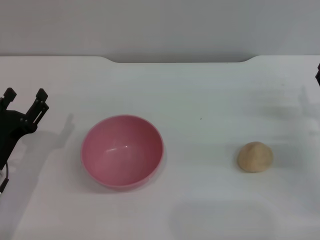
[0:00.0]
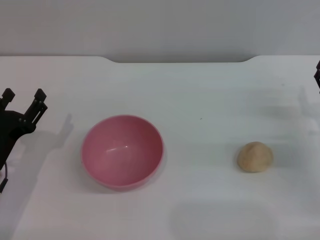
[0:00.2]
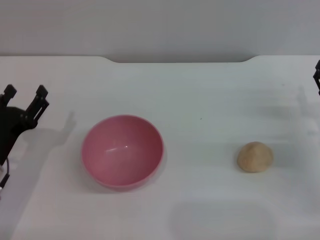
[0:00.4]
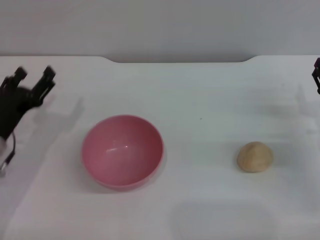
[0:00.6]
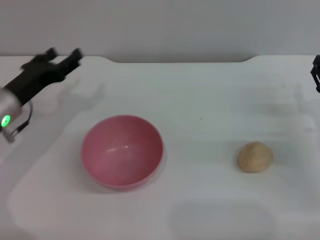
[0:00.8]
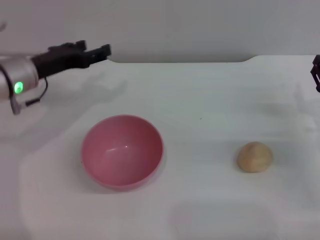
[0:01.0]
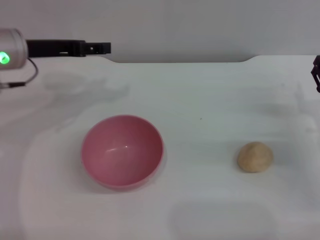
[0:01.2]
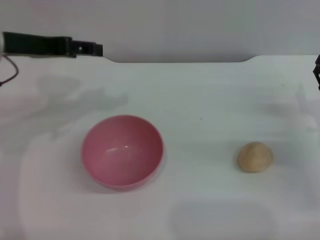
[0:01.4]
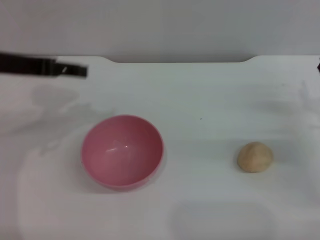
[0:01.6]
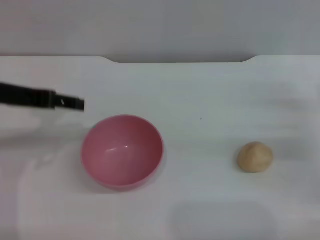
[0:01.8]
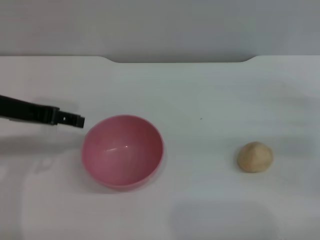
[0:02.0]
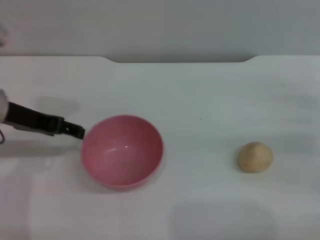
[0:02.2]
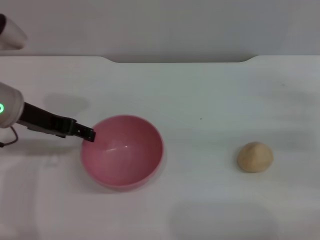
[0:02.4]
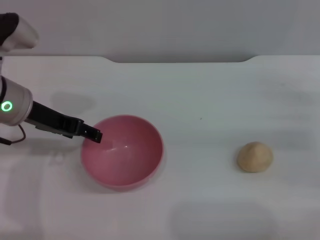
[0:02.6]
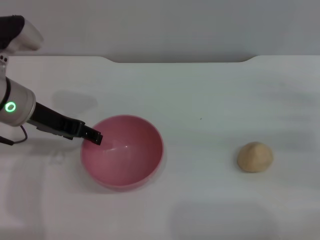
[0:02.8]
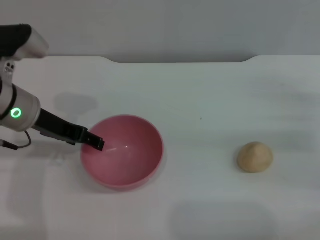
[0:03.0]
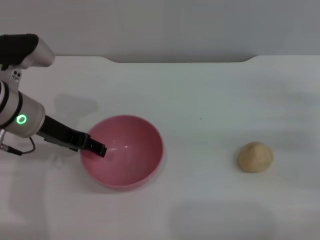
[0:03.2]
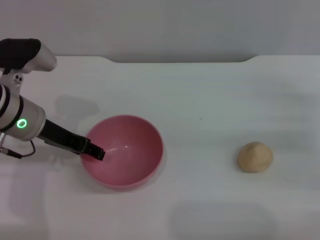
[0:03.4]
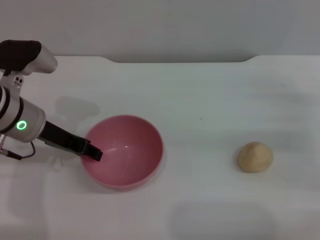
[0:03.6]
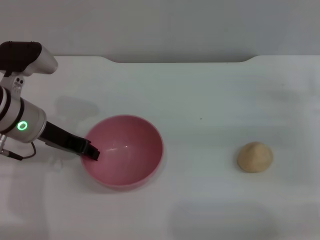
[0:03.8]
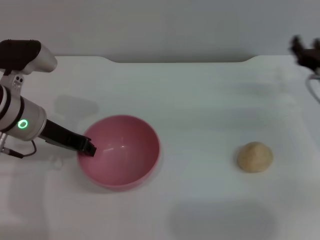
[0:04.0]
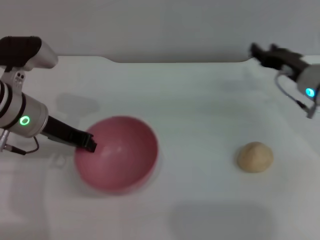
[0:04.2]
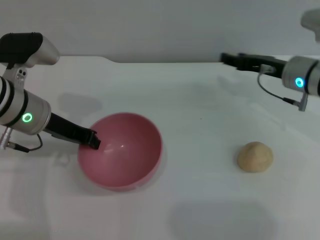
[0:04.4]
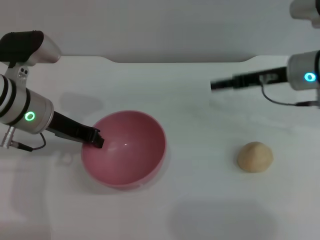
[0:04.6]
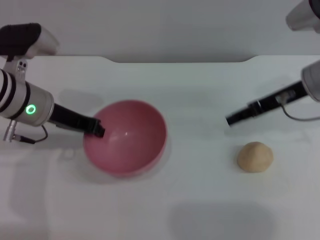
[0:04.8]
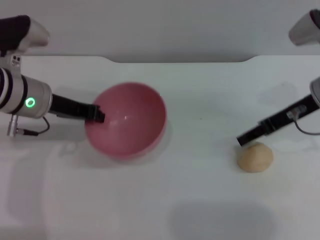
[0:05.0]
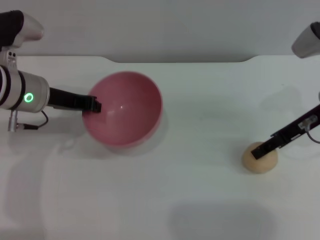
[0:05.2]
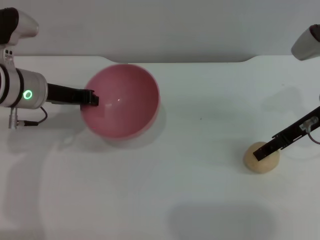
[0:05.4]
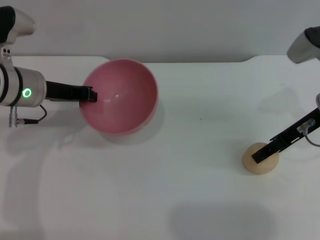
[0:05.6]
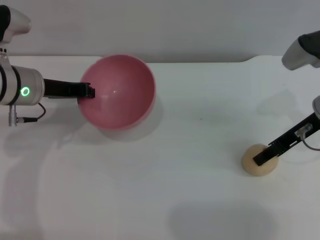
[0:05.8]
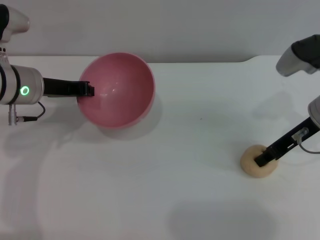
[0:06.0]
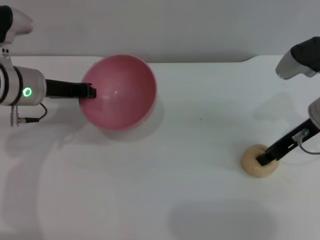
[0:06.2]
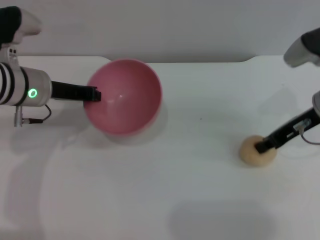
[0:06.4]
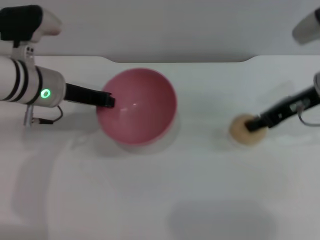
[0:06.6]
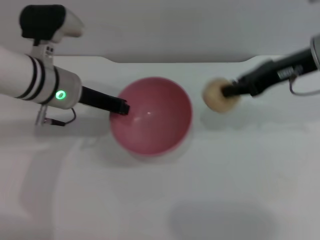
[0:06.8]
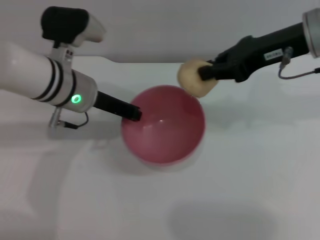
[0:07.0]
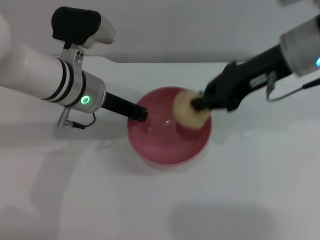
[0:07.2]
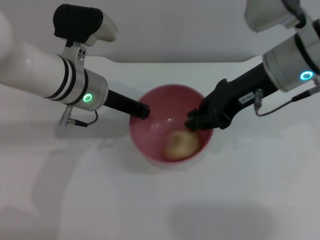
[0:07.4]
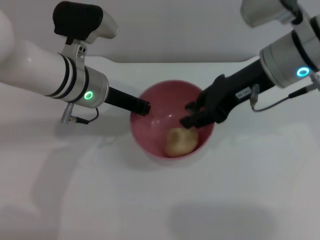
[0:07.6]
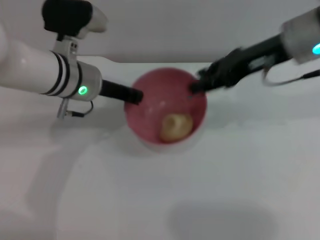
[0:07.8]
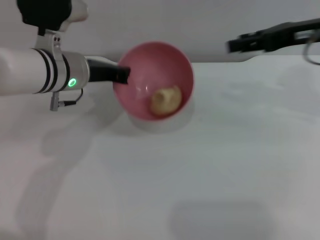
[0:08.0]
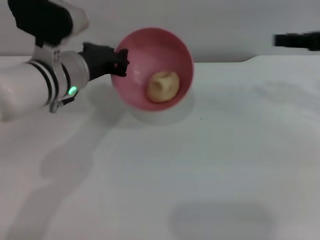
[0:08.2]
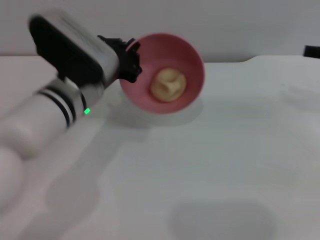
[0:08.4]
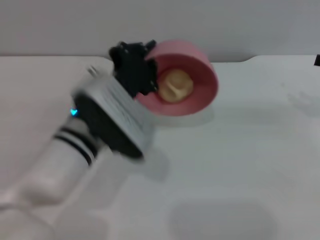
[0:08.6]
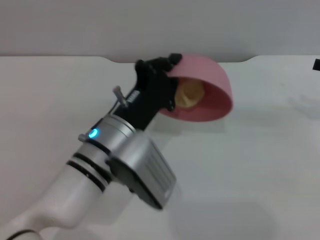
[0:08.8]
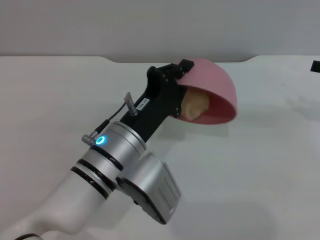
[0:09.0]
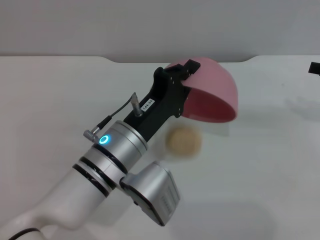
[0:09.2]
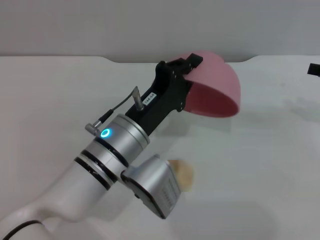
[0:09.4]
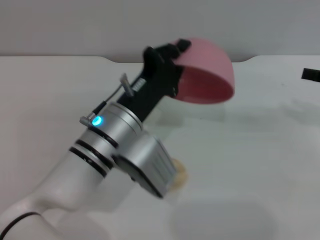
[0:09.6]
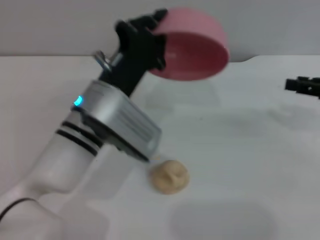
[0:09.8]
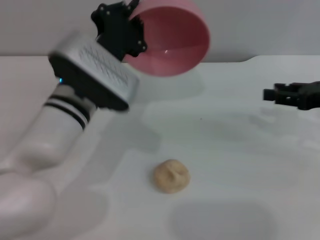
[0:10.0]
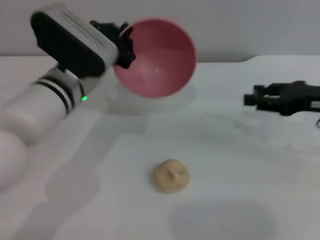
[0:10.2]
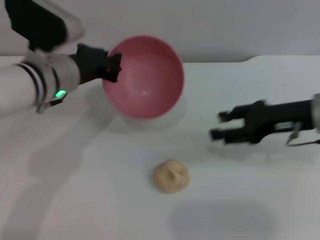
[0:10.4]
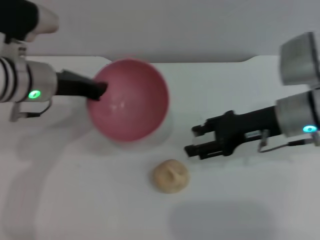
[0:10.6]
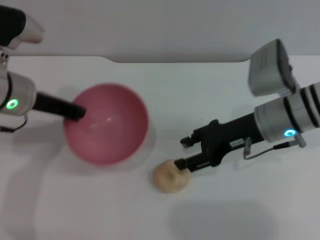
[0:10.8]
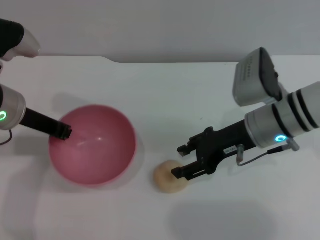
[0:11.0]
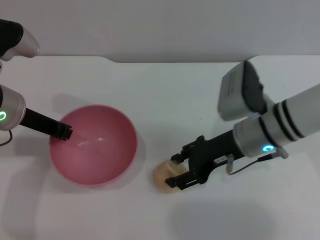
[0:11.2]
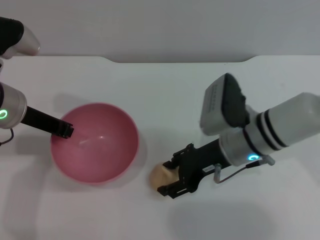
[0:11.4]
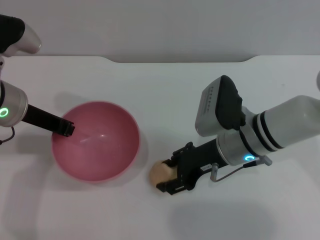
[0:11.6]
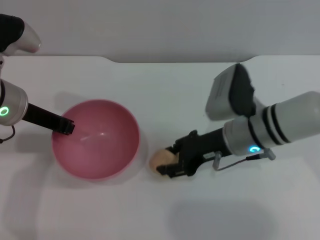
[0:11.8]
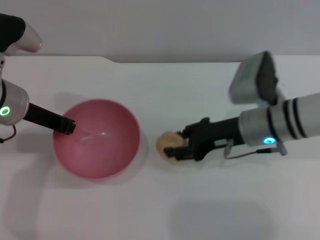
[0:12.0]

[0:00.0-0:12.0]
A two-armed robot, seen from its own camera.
Task of the whole recording: put the egg yolk pastry into the pink bowl and pour it out repeatedly.
Step, 0:00.0 to 0:04.6: Pick up the bowl with the left gripper.
Step, 0:04.8 to 0:06.6: Pick up the egg yolk pastry with the right gripper.
Step, 0:06.8 to 0:07.8: Place the egg yolk pastry into the bowl.
Step, 0:08.0 to 0:09.2: Pour the egg yolk pastry out of bowl.
0:00.0 to 0:01.6: The left gripper goes some 25 cm upward and forward.
0:01.6 to 0:03.0: The left gripper travels downward by some 10 cm.
0:03.0 to 0:04.4: The right gripper heads to the left and forward, covering some 15 cm; the left gripper closes up.
0:04.4 to 0:06.0: The right gripper ends up approximately 5 cm from where it was.
0:06.0 to 0:07.6: The right gripper travels to the left and upward by about 10 cm. The left gripper is displaced to the right by about 10 cm.
0:07.6 to 0:09.0: The right gripper shifts some 20 cm to the right, and opens, while the left gripper heads backward, downward and to the right, covering some 15 cm.
0:09.0 to 0:10.4: The left gripper moves forward, to the left and upward, about 15 cm; the right gripper heads to the left, covering roughly 10 cm.
0:10.4 to 0:12.0: The left gripper heads to the left, covering roughly 5 cm, while the right gripper heads to the left, covering some 10 cm.

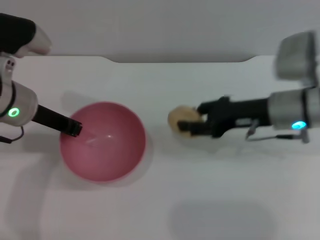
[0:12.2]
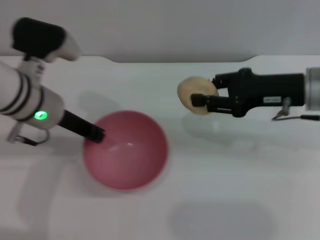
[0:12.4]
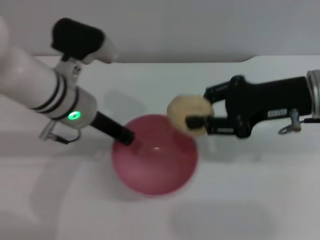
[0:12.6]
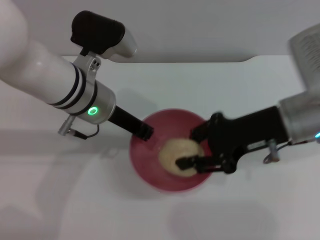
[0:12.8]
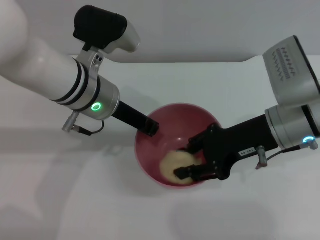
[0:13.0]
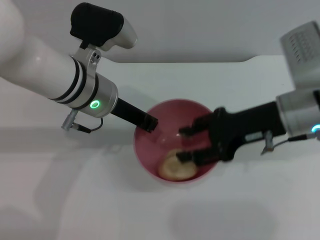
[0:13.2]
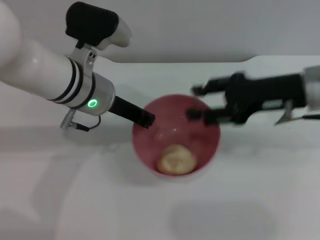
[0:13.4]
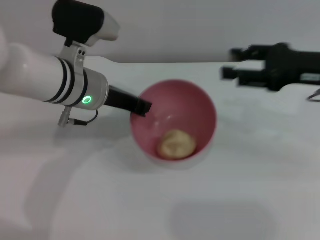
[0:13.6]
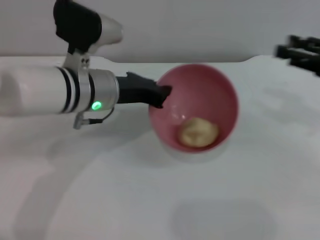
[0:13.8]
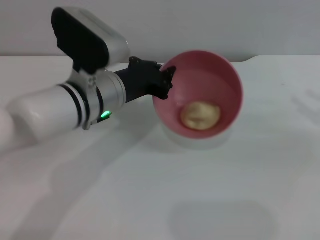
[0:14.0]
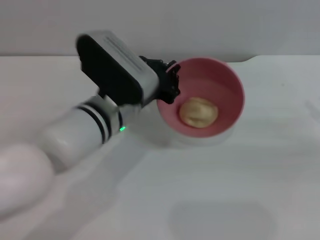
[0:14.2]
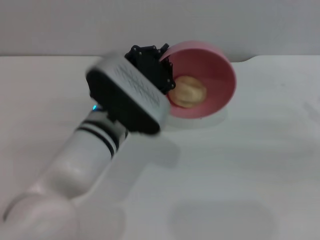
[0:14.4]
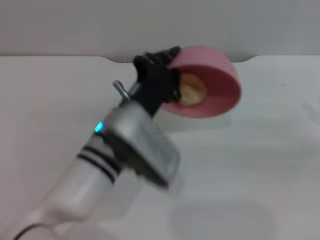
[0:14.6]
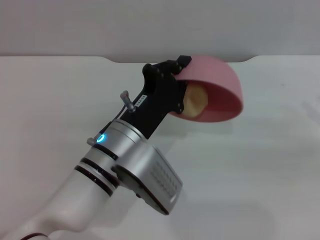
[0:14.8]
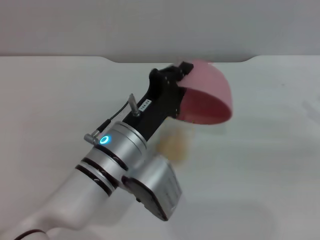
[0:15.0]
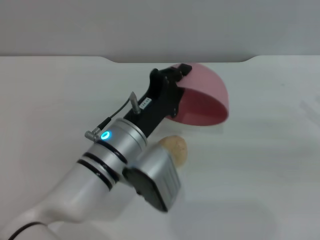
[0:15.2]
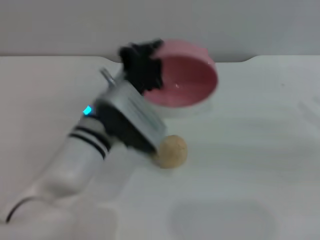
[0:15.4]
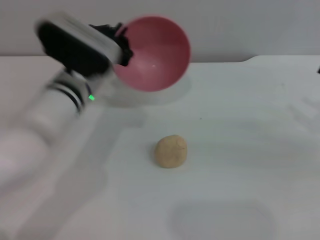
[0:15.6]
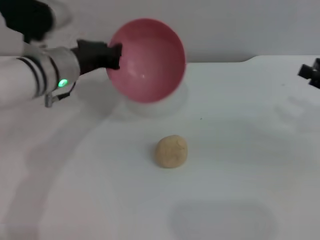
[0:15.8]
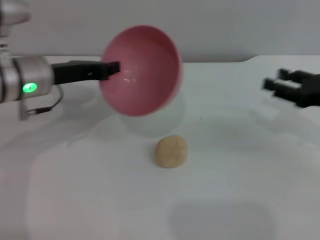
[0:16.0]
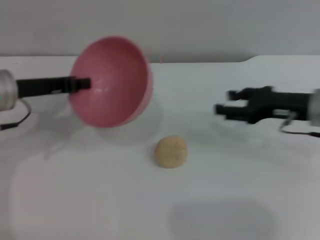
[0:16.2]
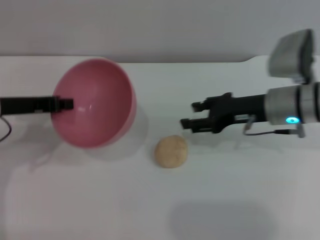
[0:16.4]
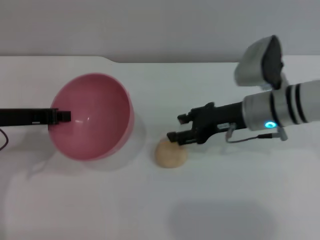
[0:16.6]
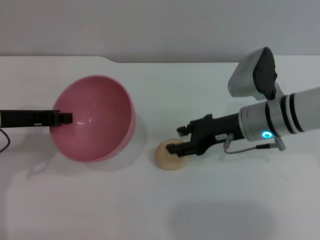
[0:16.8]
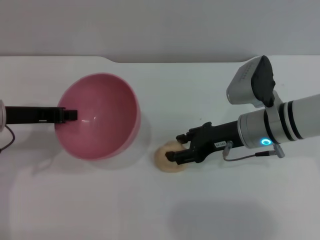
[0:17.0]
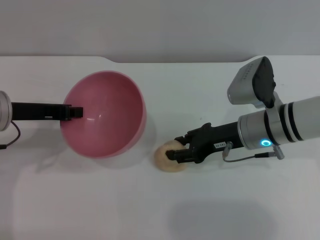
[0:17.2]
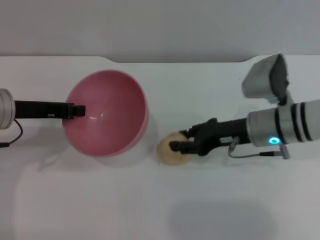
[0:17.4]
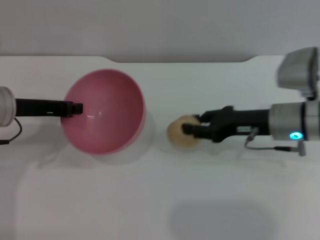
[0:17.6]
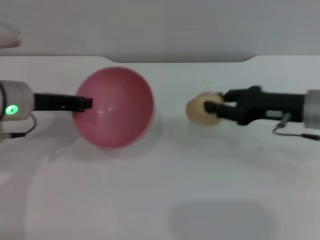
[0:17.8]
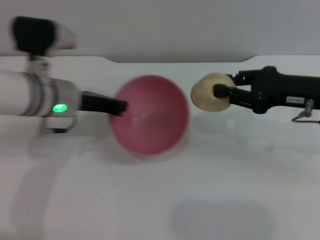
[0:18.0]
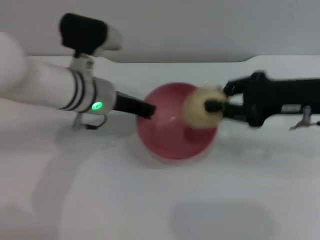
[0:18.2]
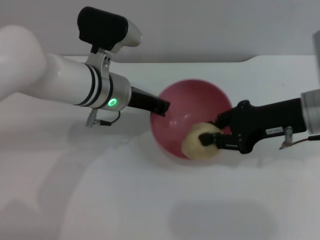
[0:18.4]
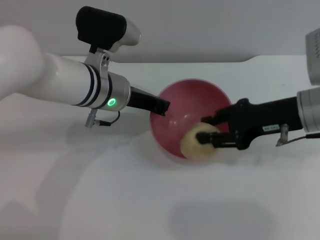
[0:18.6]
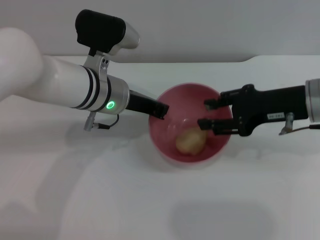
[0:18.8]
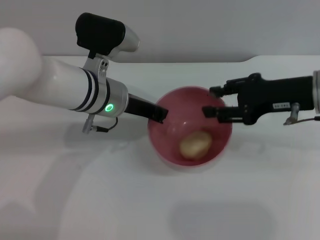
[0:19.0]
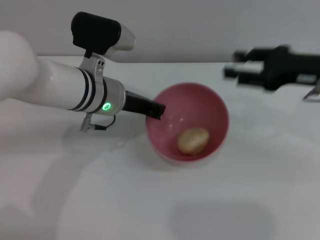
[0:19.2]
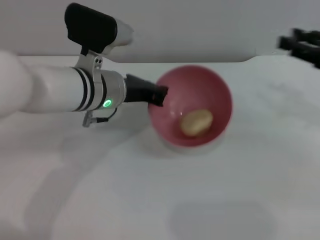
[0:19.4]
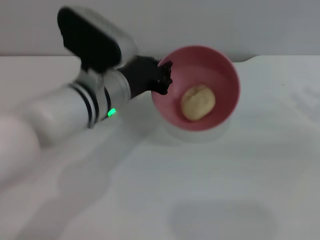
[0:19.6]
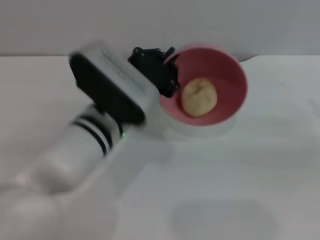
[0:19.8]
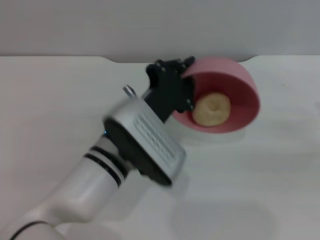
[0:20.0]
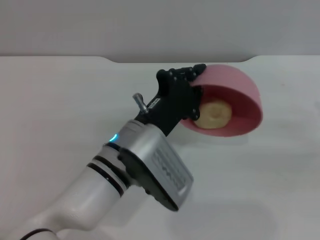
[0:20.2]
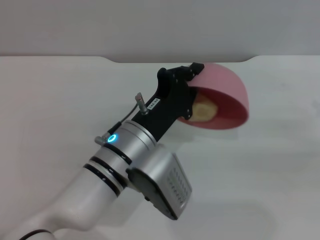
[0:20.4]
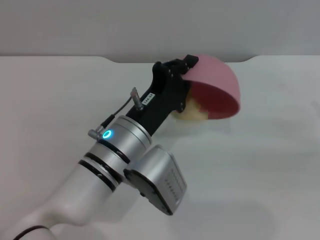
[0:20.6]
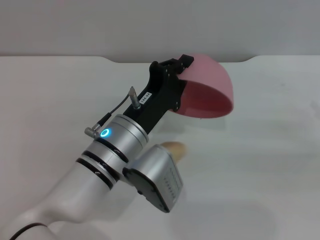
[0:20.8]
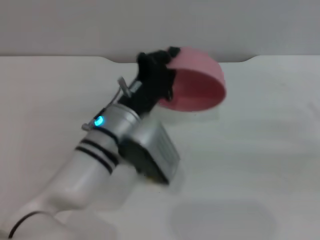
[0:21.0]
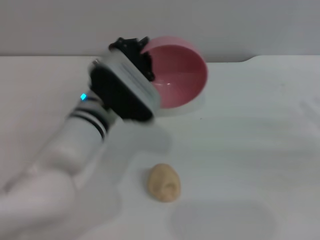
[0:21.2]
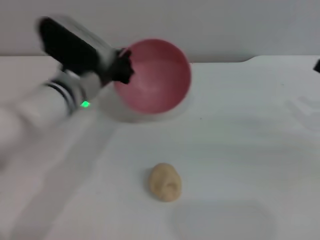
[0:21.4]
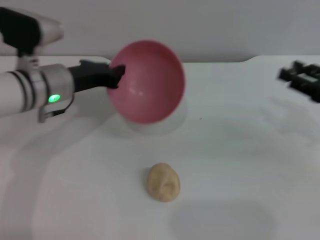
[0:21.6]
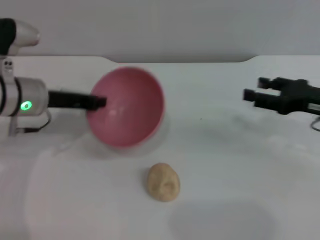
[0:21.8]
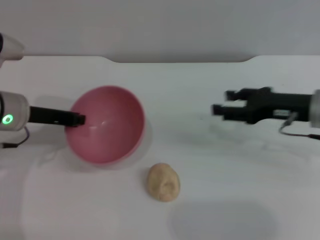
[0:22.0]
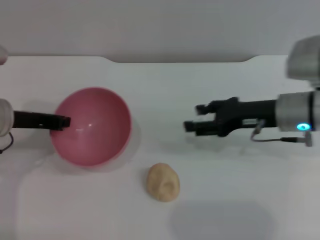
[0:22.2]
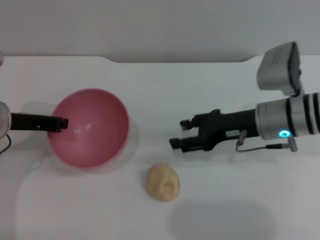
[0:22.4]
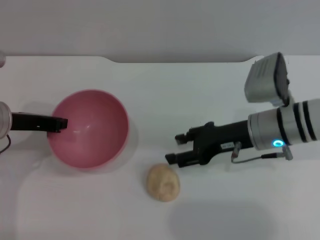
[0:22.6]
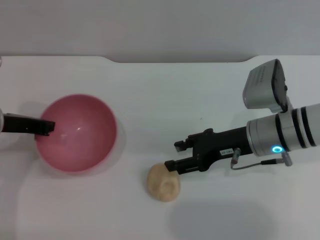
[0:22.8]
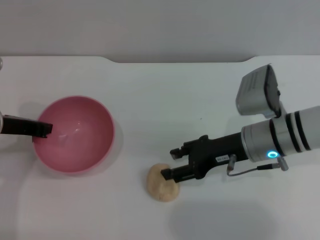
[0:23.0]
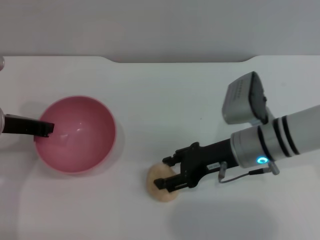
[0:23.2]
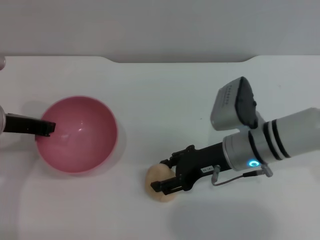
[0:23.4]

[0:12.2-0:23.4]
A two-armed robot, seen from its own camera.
Task of the whole recording: put the egg yolk pastry into the pink bowl and pour it out repeatedly.
Step, 0:12.4 to 0:13.4: Place the egg yolk pastry into the bowl.
Step, 0:13.6 to 0:15.2: Pour the egg yolk pastry out of bowl.
Step, 0:15.4 to 0:17.8: Pick up the egg yolk pastry with the right gripper.
Step, 0:18.0 to 0:19.0: Place the egg yolk pastry into the bowl.
Step, 0:19.4 to 0:20.6: Pour the egg yolk pastry out of bowl.
0:12.2 to 0:13.8: The two grippers go roughly 10 cm to the right.
0:13.8 to 0:15.4: The right gripper goes approximately 5 cm to the right; the left gripper goes about 10 cm downward and backward.
0:15.4 to 0:17.0: Both grippers travel together to the left, some 20 cm.
0:17.0 to 0:18.6: The right gripper travels upward and to the right by about 10 cm, and closes. Meanwhile the left gripper travels to the right by some 15 cm.
0:18.6 to 0:20.2: The right gripper shifts some 20 cm to the right, and opens; the left gripper heads backward, covering some 10 cm.
0:20.2 to 0:21.8: The right gripper heads to the left and forward, covering about 10 cm. The left gripper heads to the left and forward, covering about 20 cm.
0:21.8 to 0:23.4: The left gripper shifts by approximately 5 cm. Meanwhile the right gripper is displaced to the left by about 15 cm.
